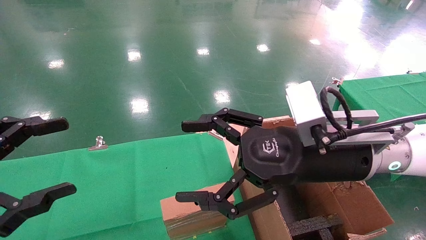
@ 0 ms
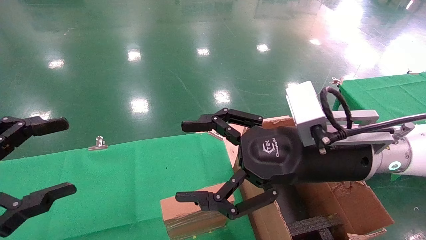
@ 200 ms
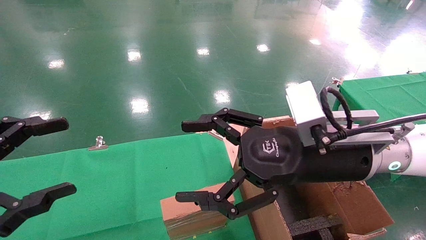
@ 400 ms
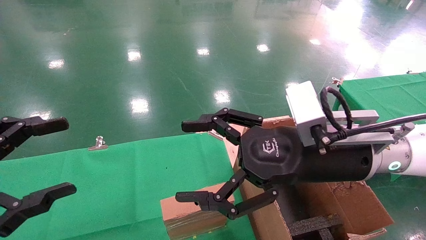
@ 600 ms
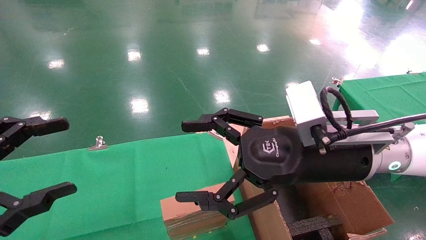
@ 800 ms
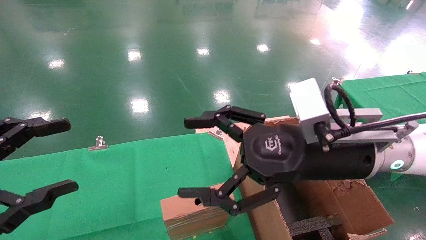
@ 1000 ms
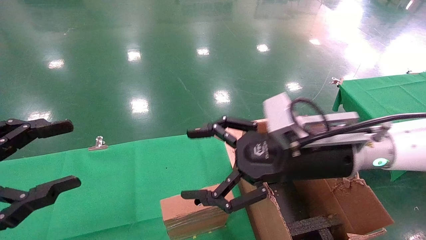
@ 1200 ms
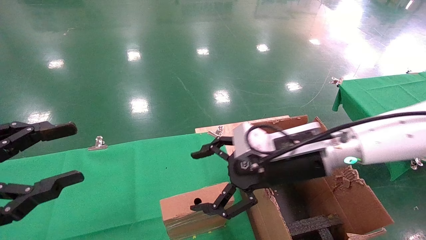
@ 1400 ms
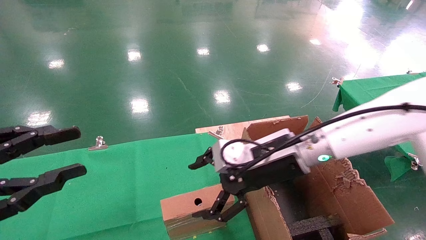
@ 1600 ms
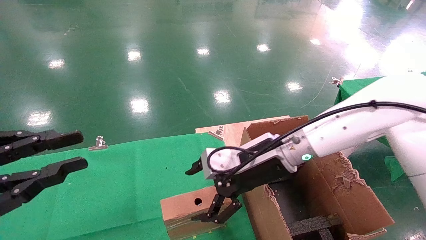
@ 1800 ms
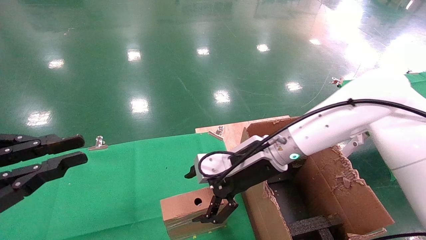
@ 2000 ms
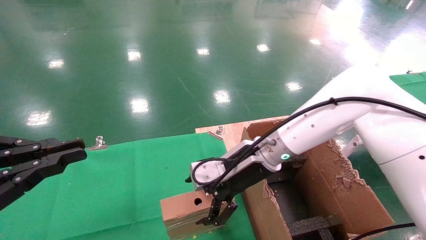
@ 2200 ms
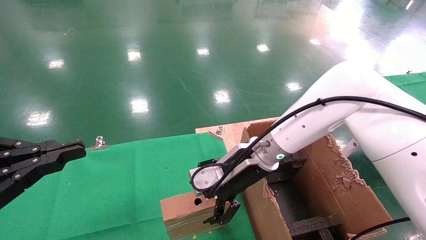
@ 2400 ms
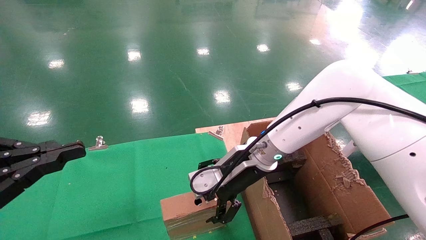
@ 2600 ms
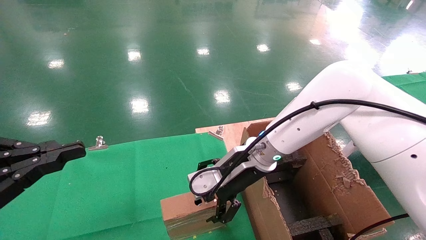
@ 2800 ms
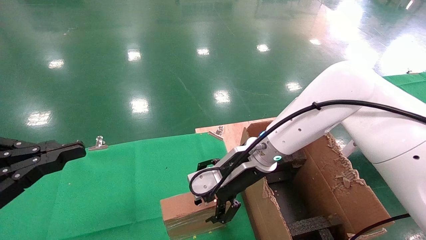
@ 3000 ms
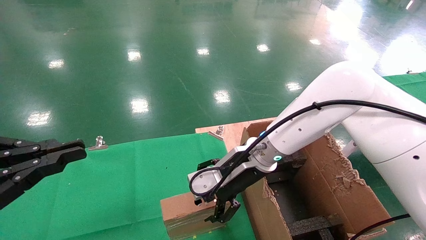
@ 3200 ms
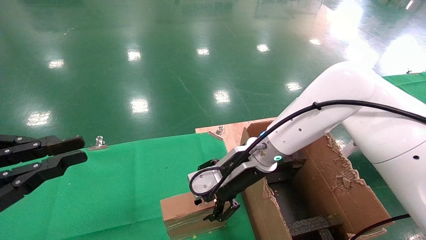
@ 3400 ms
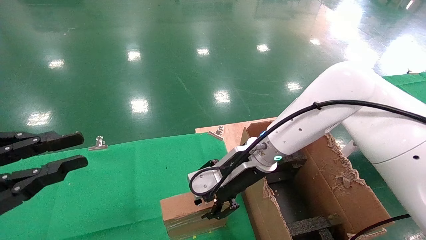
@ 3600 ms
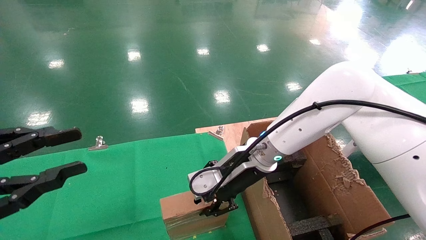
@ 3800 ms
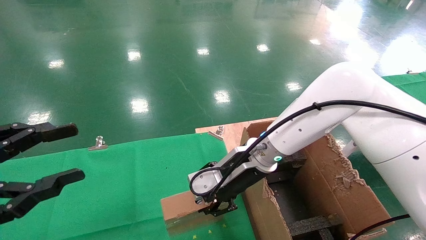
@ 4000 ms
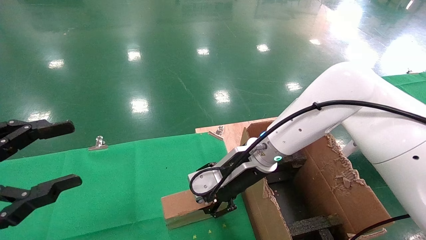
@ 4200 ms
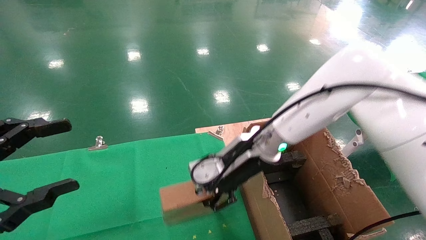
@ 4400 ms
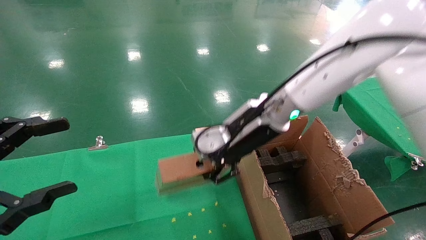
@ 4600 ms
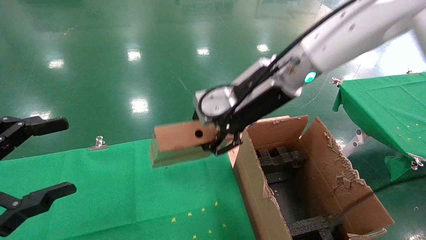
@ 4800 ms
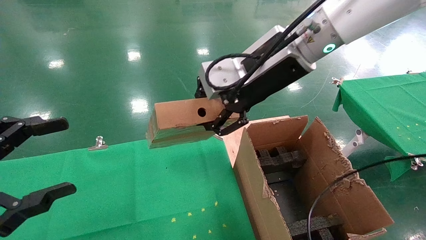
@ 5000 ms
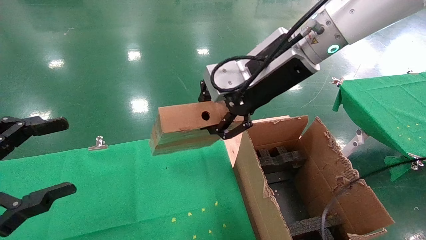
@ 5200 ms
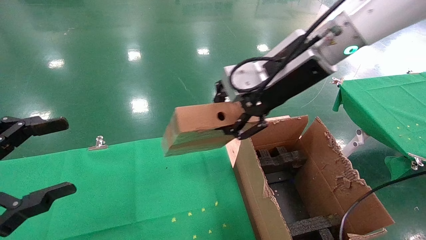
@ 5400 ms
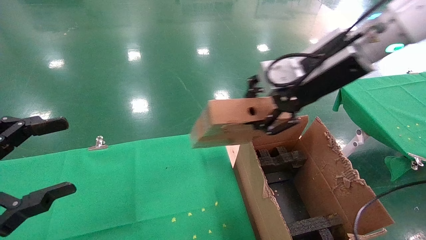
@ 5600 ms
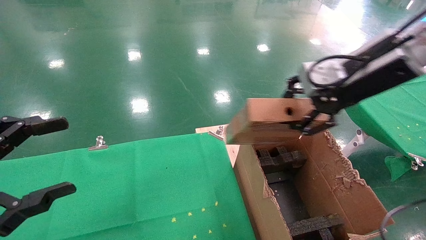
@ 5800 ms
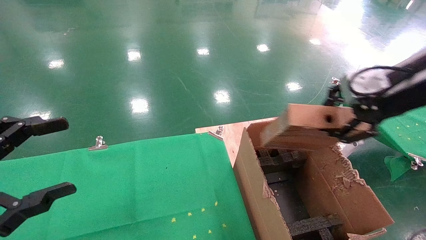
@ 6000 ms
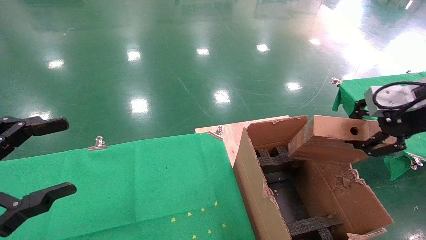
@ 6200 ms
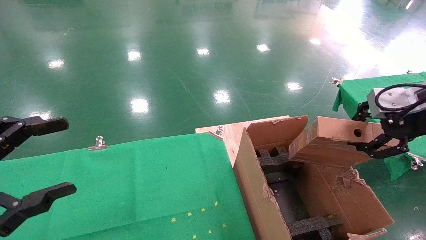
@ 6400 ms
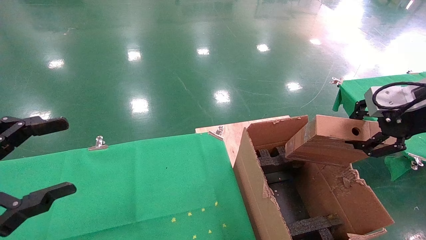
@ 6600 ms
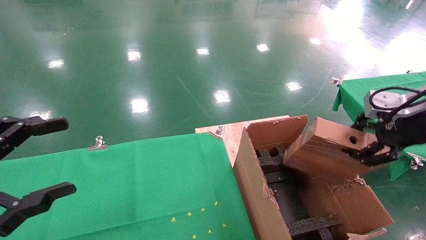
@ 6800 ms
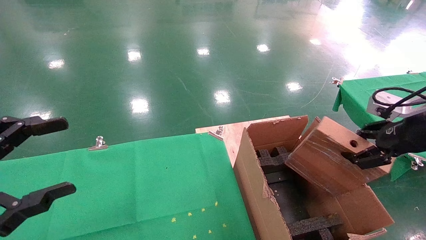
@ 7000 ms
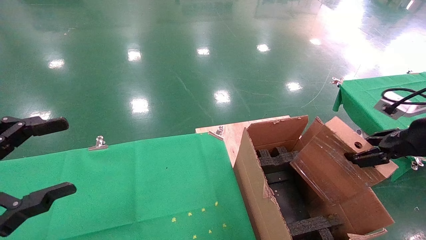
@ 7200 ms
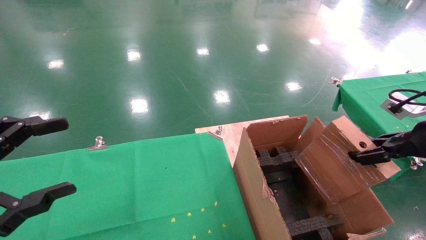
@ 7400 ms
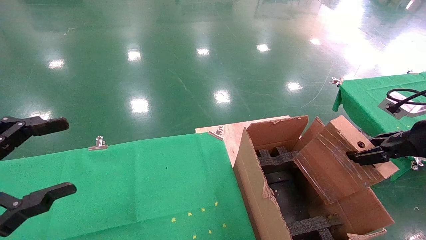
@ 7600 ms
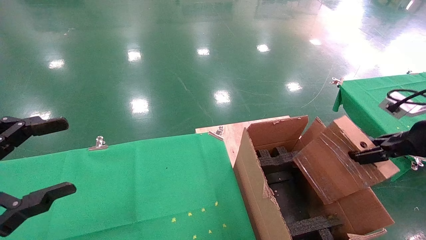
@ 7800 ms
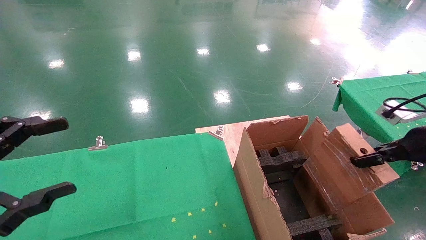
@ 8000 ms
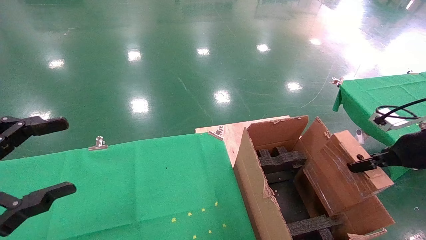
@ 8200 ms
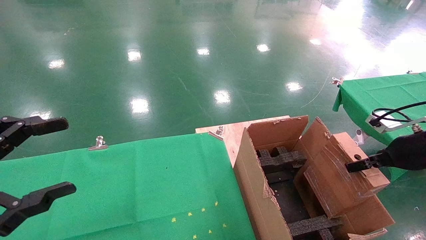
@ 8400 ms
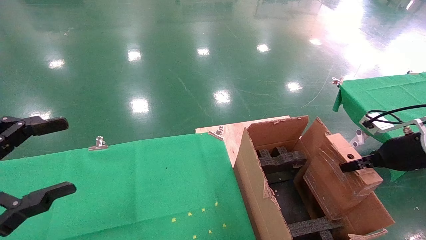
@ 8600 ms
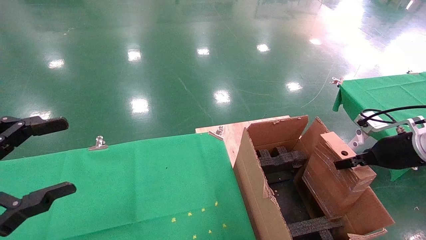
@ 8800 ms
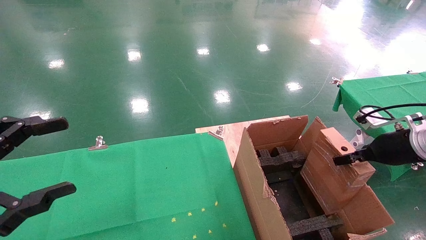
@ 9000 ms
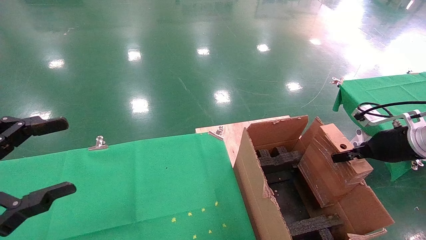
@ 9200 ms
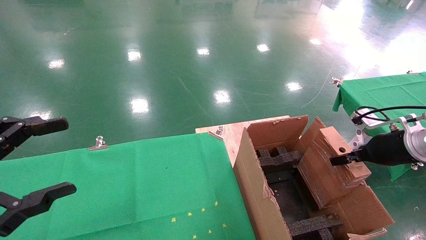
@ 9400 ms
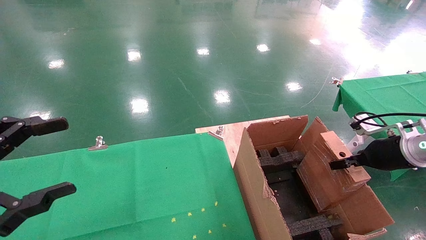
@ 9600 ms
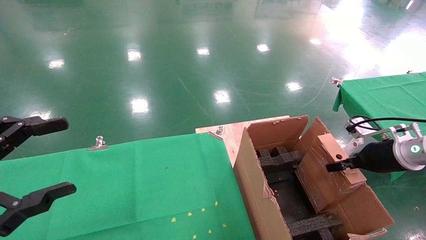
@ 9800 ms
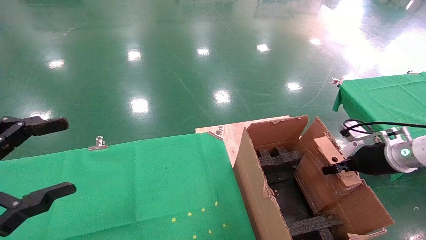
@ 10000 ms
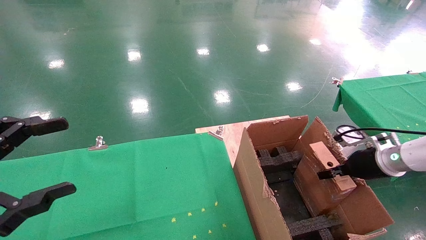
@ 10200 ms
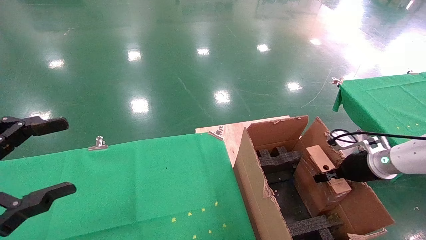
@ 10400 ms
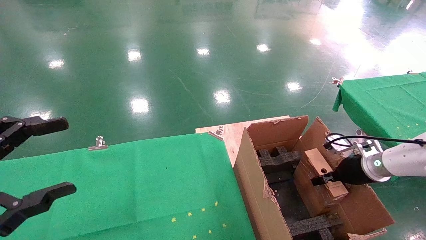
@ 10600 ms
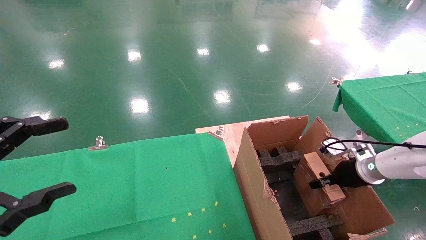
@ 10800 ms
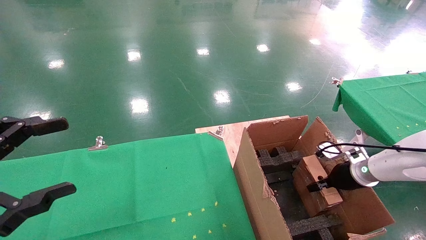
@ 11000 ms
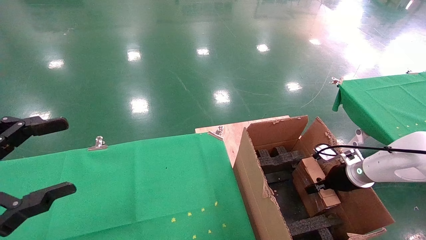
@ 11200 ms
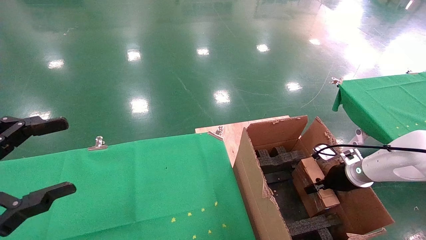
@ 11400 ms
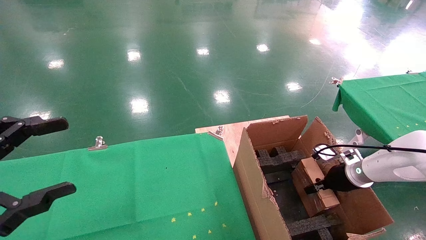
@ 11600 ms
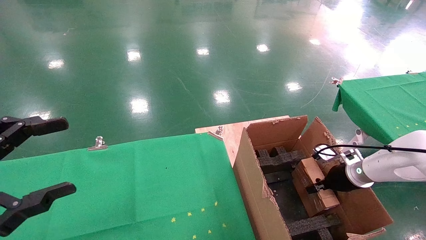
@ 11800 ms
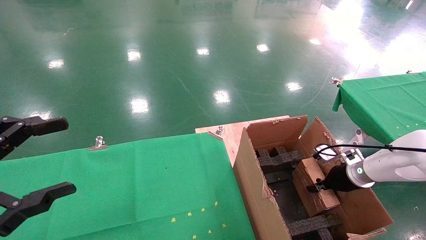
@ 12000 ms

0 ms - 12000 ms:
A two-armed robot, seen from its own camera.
Task of the whole recording: using a robotic arm to pick up a cardboard box and palace it the carton.
Step, 1400 ms - 4200 ms: Pick up the mouse and the power cord paper box.
0 ms - 1600 ms: The right gripper shifts roughly 10 cm forward, while the left gripper closes its fingers.
1600 ms - 3000 ms: The left gripper closes its fingers. Meanwhile the right gripper ends up some 5 cm from where it was.
3000 ms - 4400 ms: The right gripper closes up. The left gripper opens.
4400 ms - 6000 ms: The right gripper is displaced to the right, upward and backward by about 30 cm.
6000 ms - 7600 ms: The right gripper shifts roughly 15 cm to the right and downward.
7600 ms - 9000 ms: The right gripper goes roughly 10 cm forward and downward.
9000 ms - 10400 ms: The right gripper heads downward and forward, covering some 10 cm.
10400 ms - 12000 ms: The right gripper heads downward, covering some 5 cm.

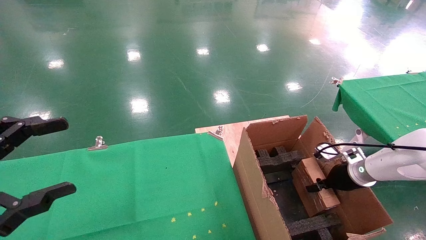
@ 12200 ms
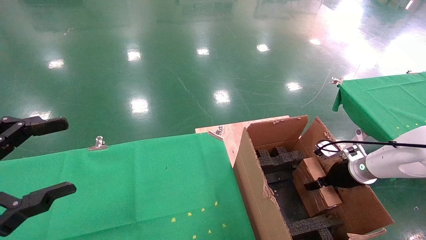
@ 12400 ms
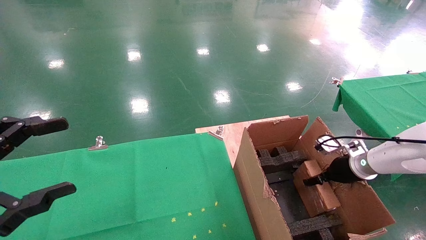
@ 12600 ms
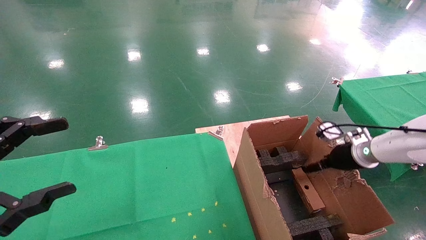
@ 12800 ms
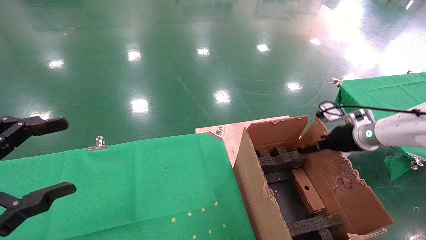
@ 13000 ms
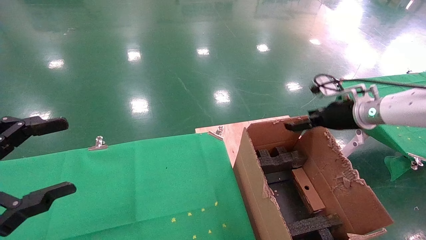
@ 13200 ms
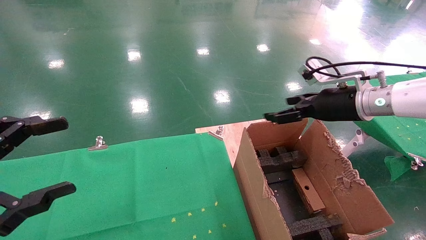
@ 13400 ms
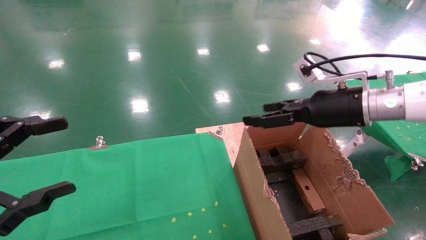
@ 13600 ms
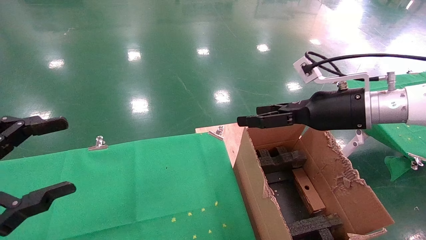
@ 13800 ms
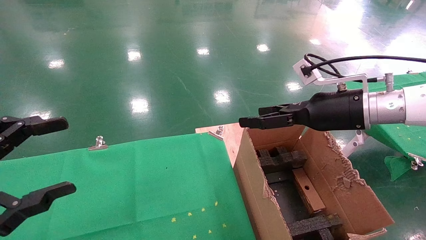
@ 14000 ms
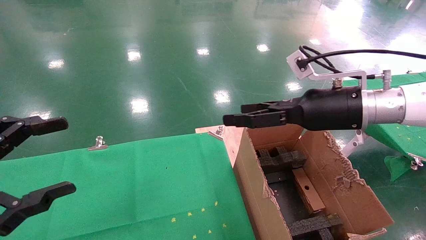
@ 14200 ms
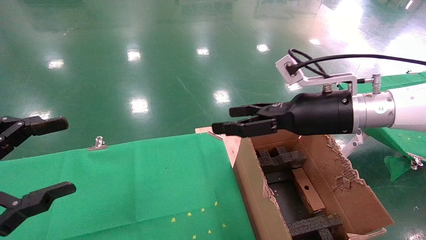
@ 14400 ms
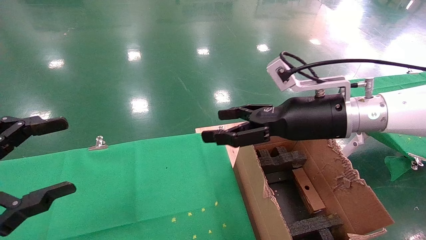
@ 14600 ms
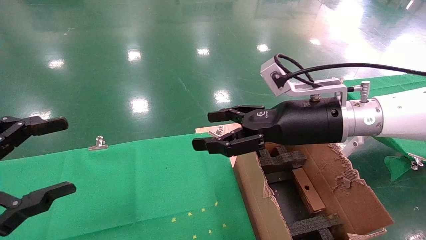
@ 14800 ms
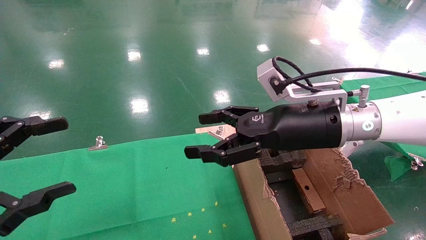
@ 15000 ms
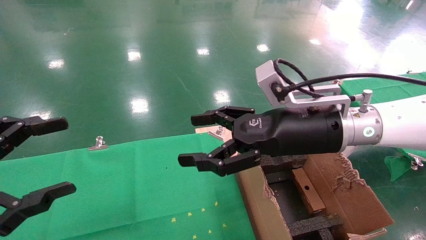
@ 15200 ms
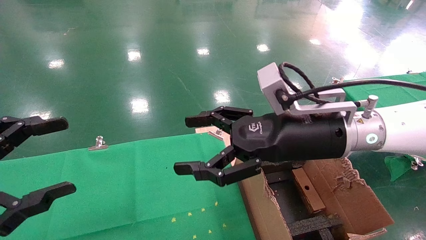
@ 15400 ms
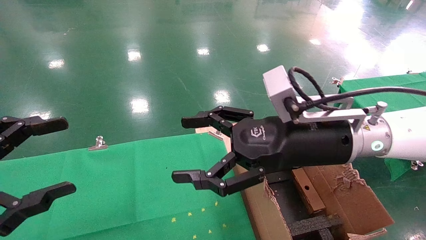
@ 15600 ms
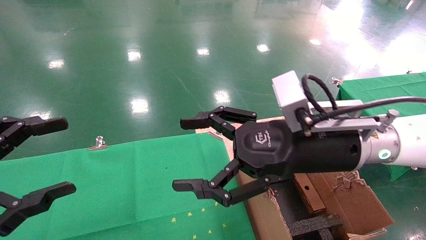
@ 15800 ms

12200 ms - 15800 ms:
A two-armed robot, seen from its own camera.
Task of the whole recording: using a robotic arm to pick up a cardboard box and palace it the carton.
12200 ms - 14000 ms: The right gripper moves upward and to the left, roughly 25 cm, and opens.
14000 ms - 15800 ms: The right gripper is displaced to the left and backward by some 15 cm.

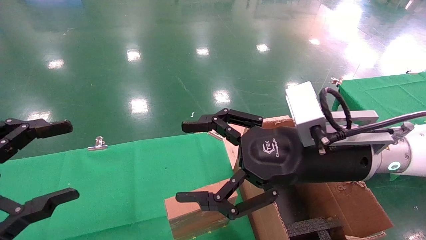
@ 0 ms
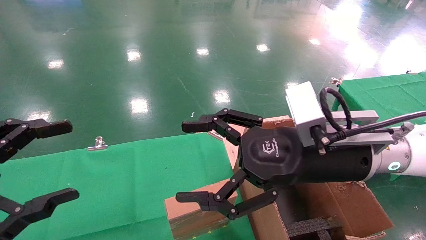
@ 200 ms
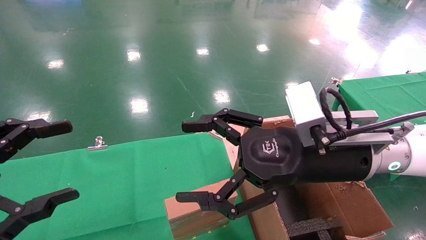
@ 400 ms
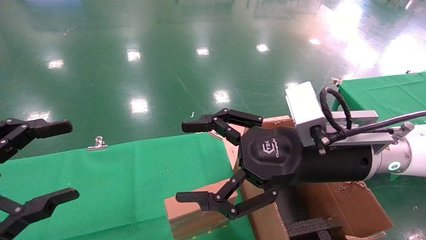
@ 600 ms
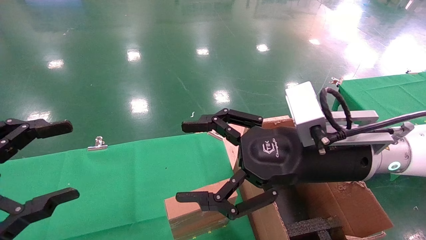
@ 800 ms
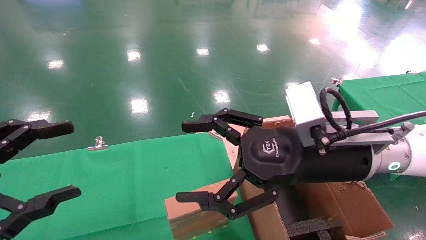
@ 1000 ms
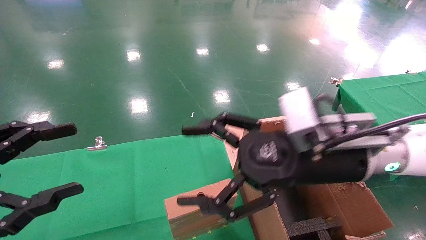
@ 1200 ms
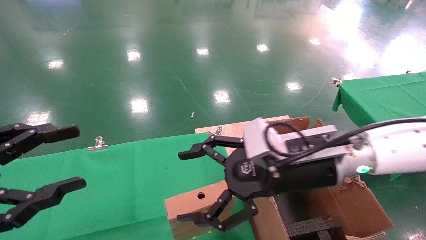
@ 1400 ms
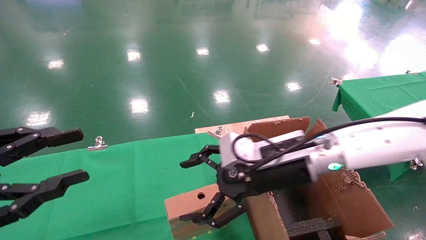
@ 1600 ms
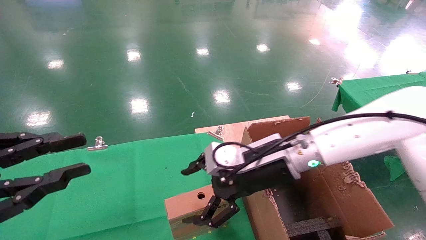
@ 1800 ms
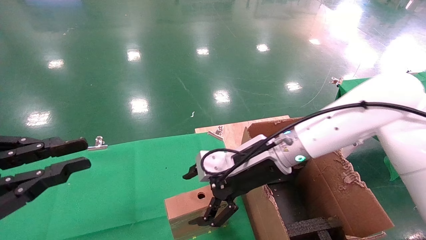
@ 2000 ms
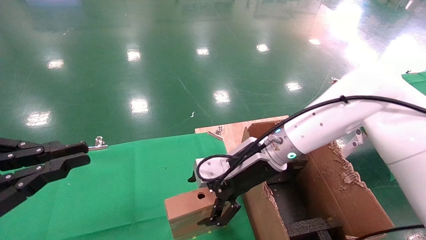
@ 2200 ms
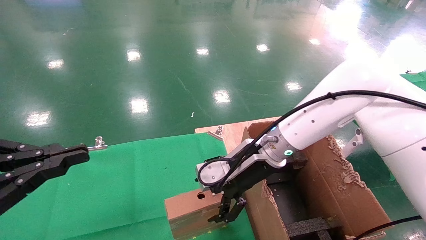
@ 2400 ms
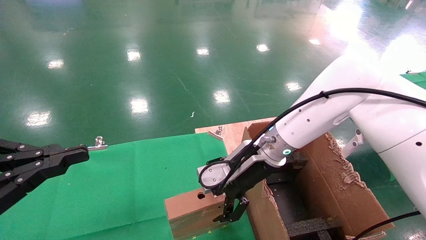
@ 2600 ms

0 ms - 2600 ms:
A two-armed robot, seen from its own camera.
Task of the whole recording: using a robotic arm to pick up a cardboard box and palace it the carton.
0 ms - 1200 ms: The grippers make only small movements.
1200 ms - 2600 ms: The left gripper closes up, while the right gripper heads forward and to the left, covering some 10 cm.
